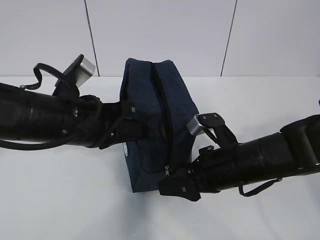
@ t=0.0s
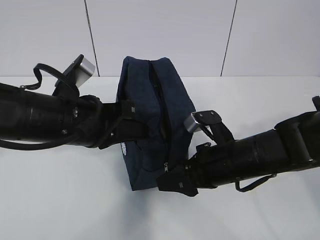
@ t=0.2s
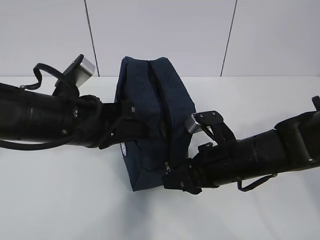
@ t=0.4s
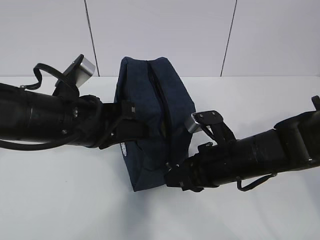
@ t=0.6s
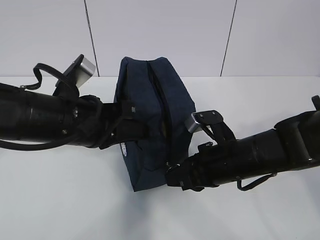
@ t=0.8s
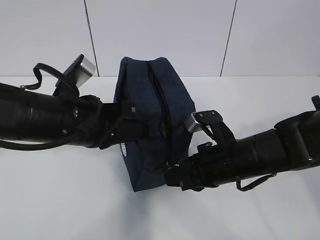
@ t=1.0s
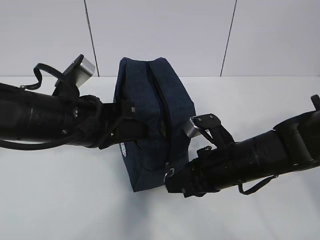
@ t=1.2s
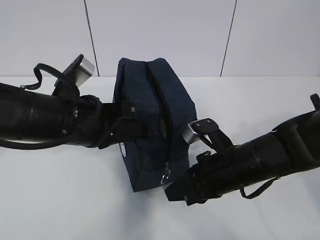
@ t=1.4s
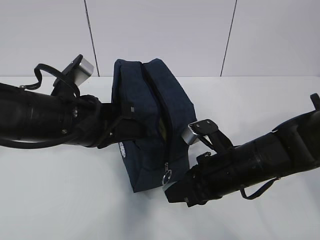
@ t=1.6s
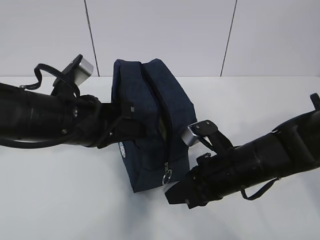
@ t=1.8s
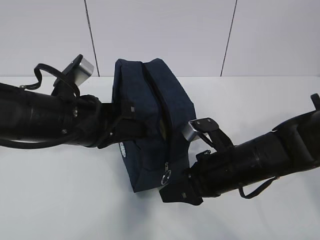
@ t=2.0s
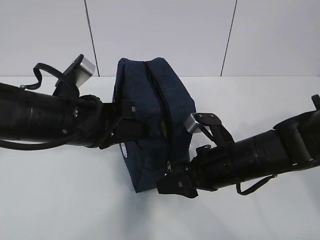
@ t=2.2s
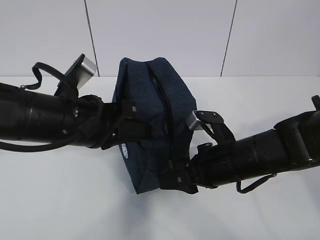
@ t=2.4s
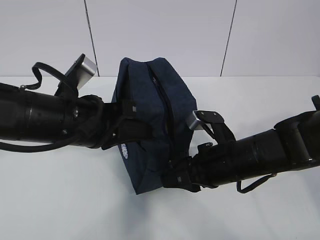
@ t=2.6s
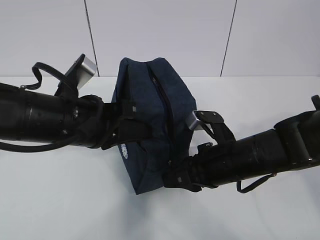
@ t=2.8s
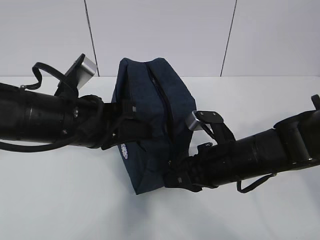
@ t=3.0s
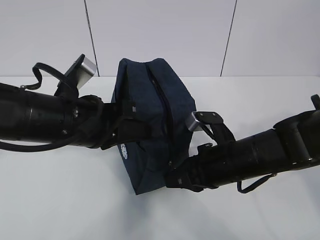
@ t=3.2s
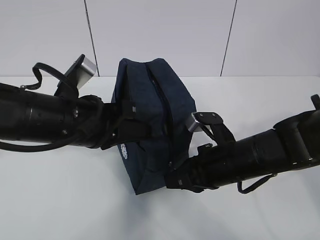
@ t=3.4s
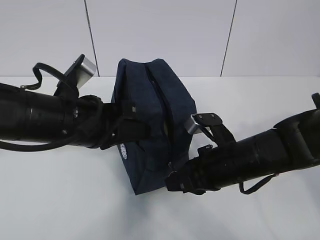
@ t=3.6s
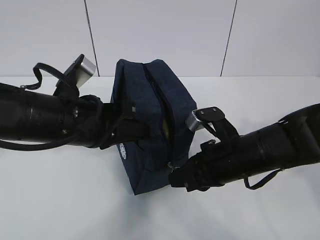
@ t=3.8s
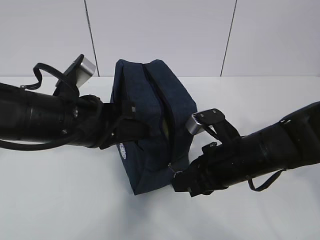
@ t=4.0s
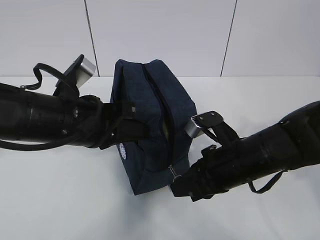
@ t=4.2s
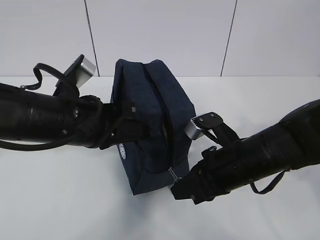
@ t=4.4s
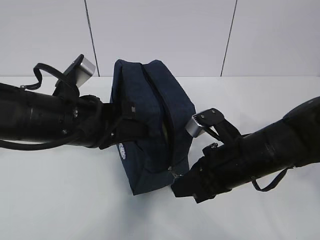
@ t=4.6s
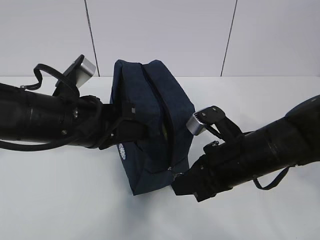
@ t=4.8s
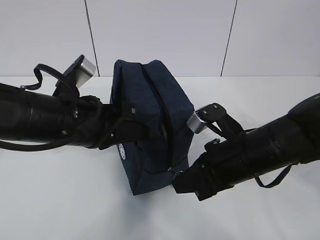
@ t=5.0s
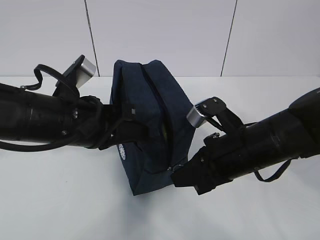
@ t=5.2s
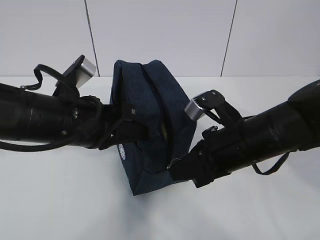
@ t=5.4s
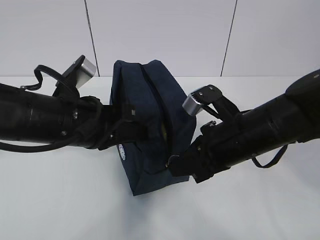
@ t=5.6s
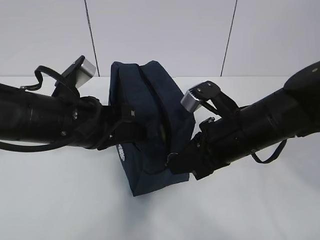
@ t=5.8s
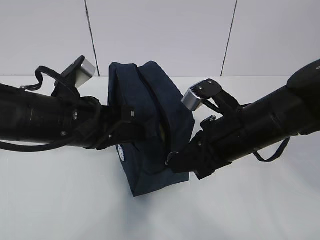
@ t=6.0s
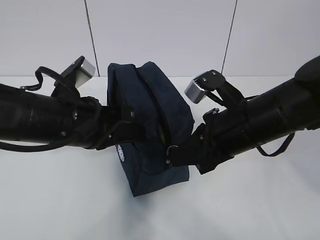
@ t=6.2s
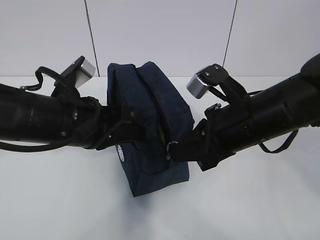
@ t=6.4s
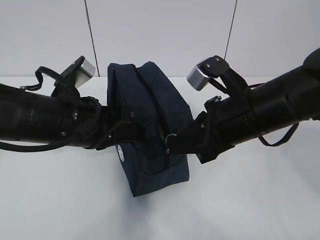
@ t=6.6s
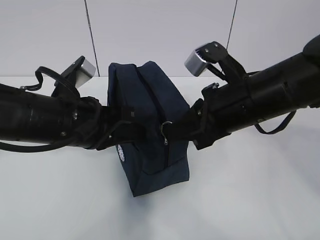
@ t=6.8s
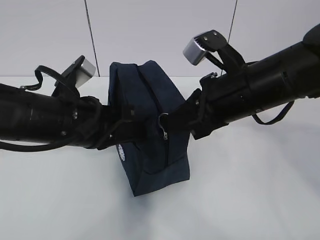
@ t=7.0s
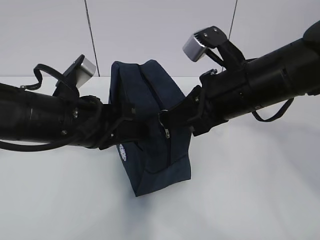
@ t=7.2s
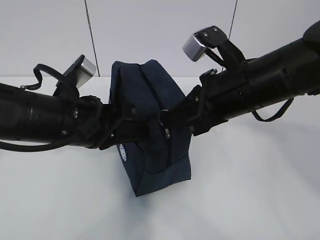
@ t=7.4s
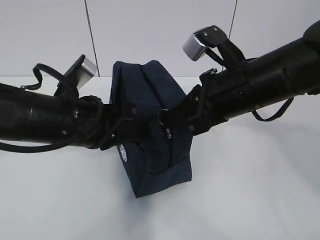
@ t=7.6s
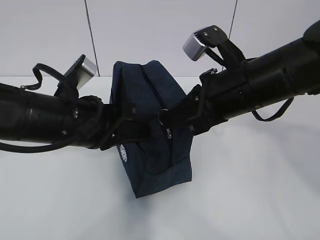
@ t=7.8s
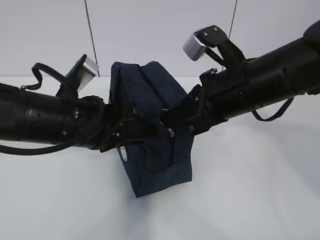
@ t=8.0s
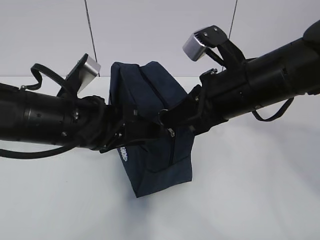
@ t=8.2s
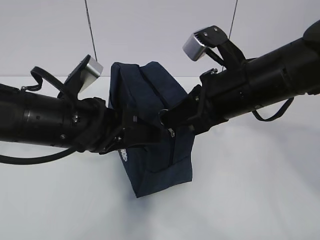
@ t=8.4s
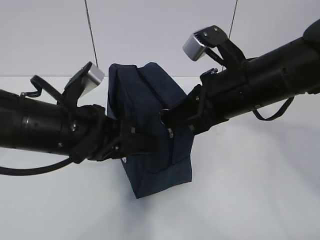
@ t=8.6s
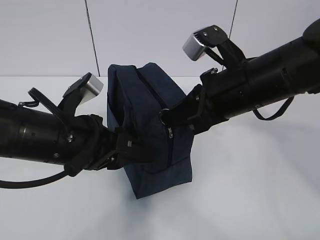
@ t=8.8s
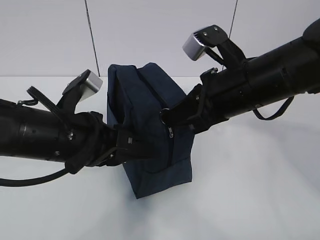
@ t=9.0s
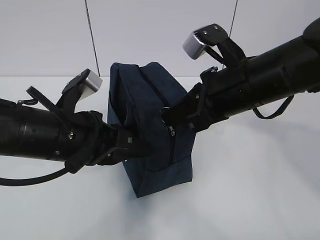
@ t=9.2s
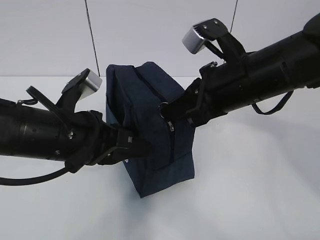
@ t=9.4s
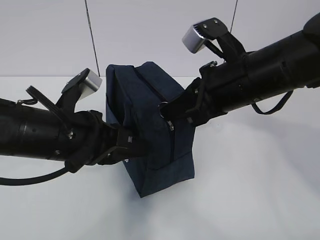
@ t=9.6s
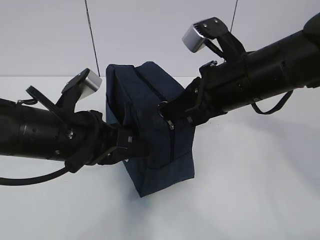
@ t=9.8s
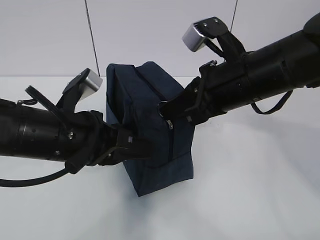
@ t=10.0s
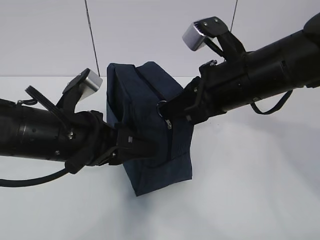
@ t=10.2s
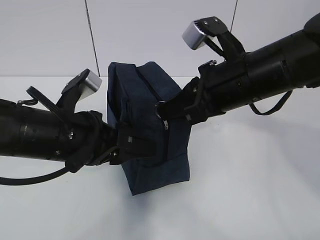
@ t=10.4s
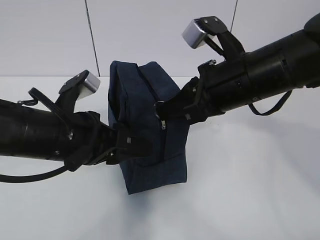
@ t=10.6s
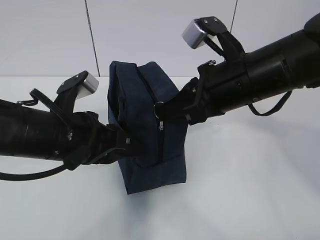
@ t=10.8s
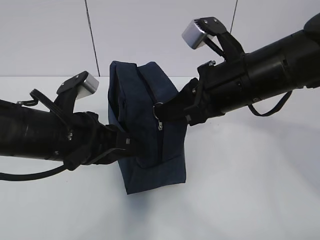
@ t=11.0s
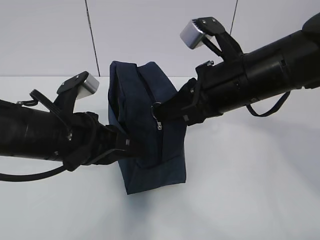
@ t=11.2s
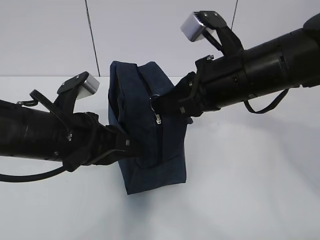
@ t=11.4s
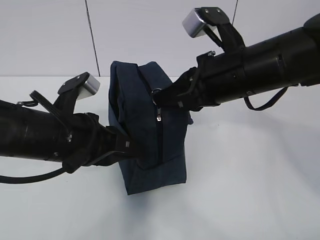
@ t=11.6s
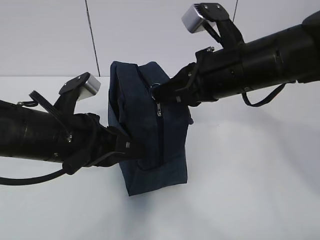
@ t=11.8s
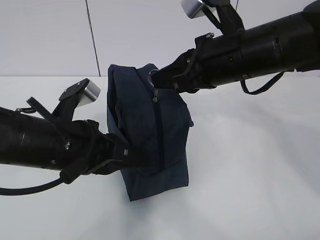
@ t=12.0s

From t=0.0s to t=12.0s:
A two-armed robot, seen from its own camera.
Step, from t=2.2s to t=8.6s: Grab the lunch bag with your left hand.
From t=0.0s to t=1.6s: The right gripper closes its fingers.
From t=1.6s to t=3.0s: The right gripper opens, then closes once more.
From t=3.0s to t=4.4s: The grippers stay close to where they were, moving slightly.
From t=4.4s to t=6.0s: The right gripper is displaced upward by about 5 cm.
From t=6.0s to t=7.6s: The right gripper is displaced upward by roughly 5 cm.
From t=7.6s to t=9.0s: The left gripper opens its fingers.
From t=9.0s to t=10.4s: The left gripper closes, then reopens.
From t=10.4s to t=12.0s: The left gripper closes.

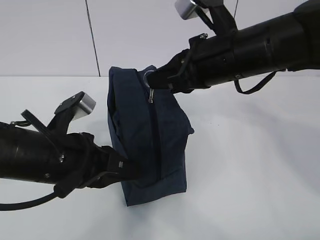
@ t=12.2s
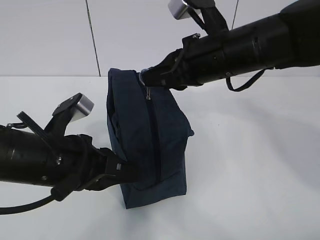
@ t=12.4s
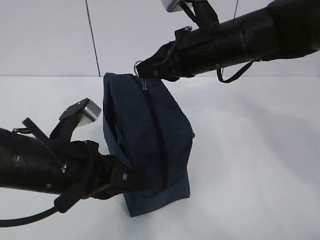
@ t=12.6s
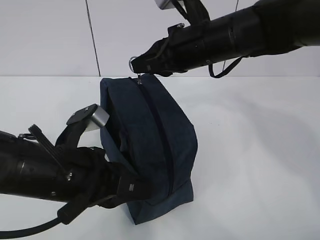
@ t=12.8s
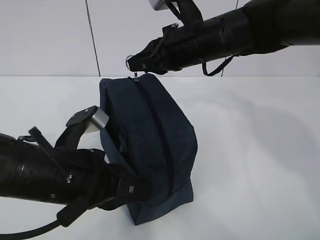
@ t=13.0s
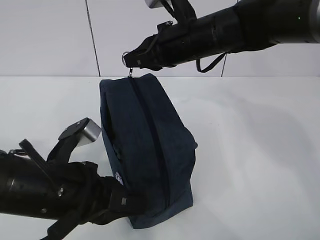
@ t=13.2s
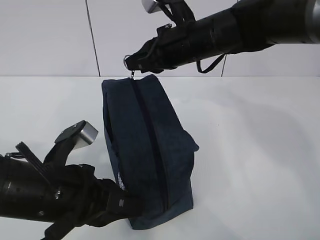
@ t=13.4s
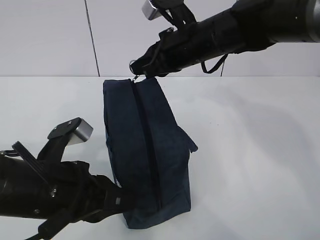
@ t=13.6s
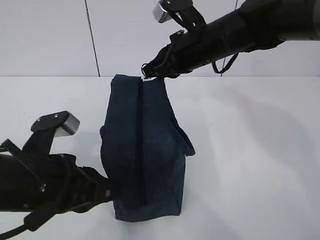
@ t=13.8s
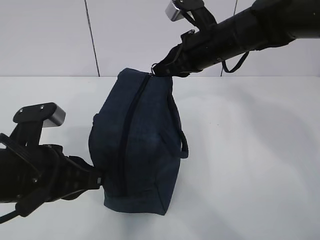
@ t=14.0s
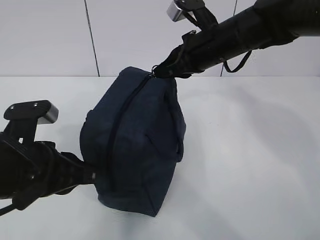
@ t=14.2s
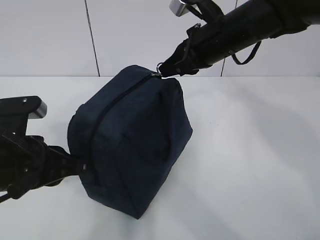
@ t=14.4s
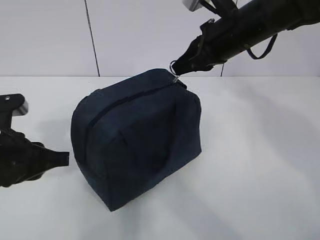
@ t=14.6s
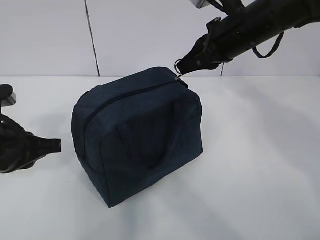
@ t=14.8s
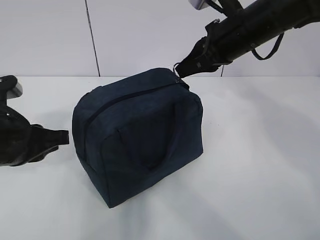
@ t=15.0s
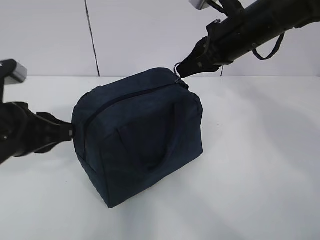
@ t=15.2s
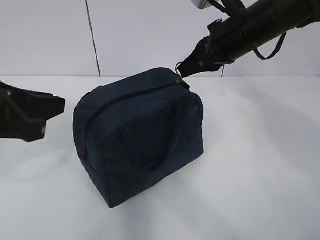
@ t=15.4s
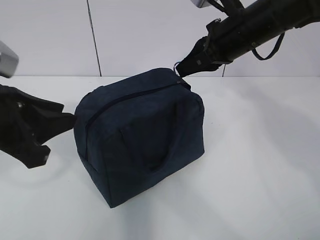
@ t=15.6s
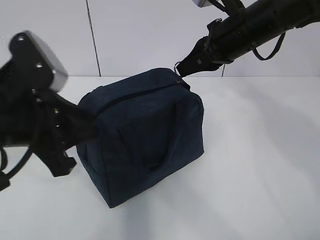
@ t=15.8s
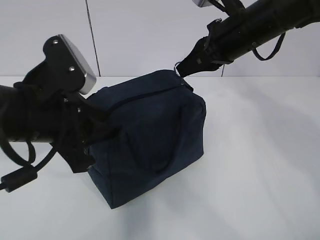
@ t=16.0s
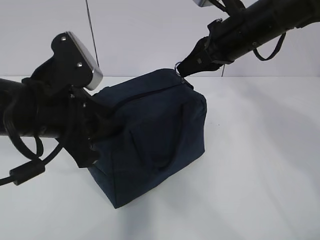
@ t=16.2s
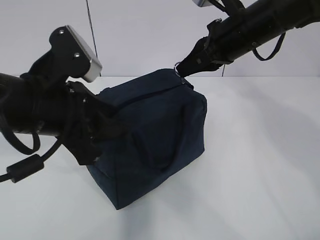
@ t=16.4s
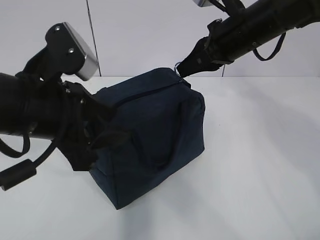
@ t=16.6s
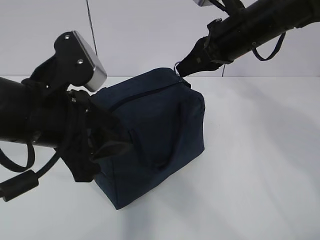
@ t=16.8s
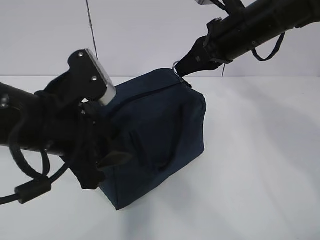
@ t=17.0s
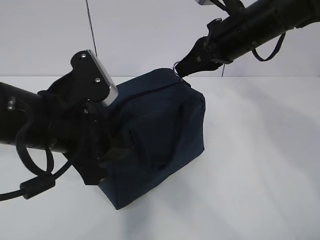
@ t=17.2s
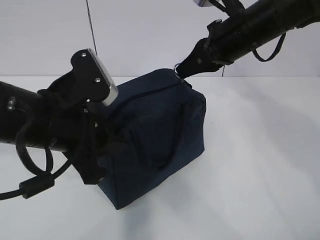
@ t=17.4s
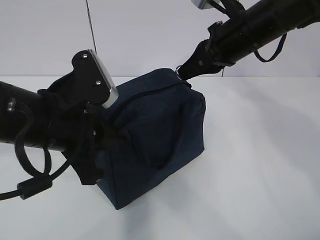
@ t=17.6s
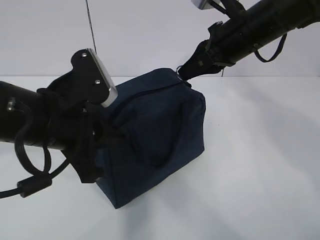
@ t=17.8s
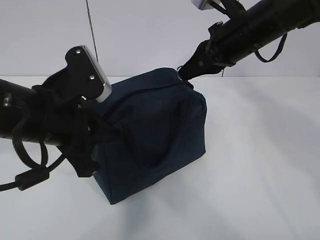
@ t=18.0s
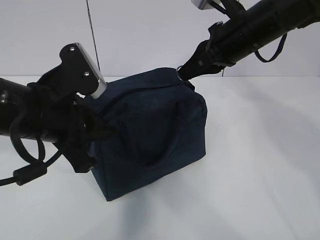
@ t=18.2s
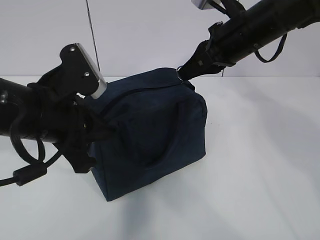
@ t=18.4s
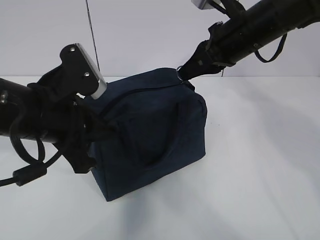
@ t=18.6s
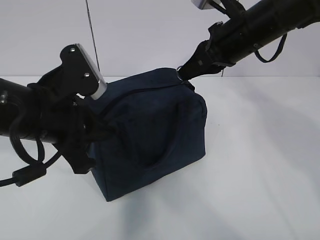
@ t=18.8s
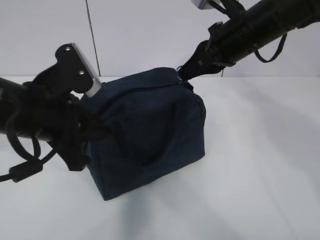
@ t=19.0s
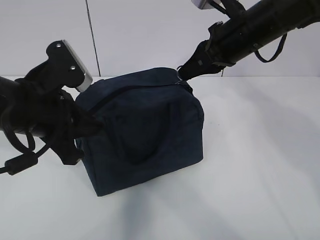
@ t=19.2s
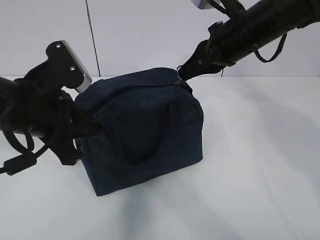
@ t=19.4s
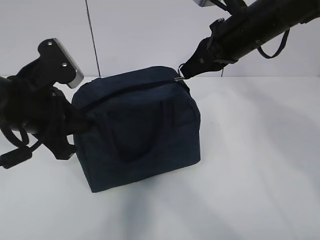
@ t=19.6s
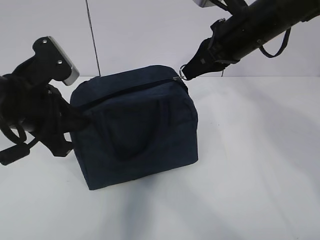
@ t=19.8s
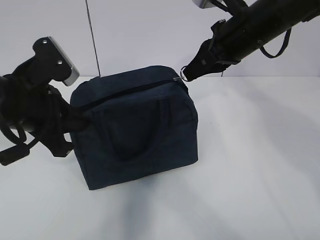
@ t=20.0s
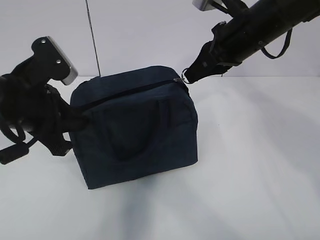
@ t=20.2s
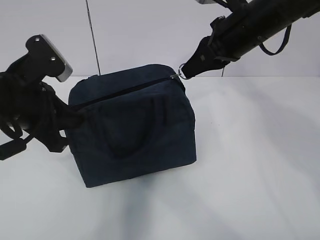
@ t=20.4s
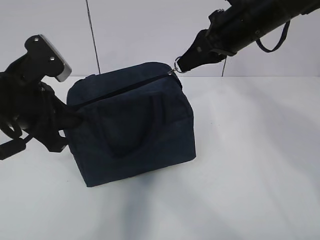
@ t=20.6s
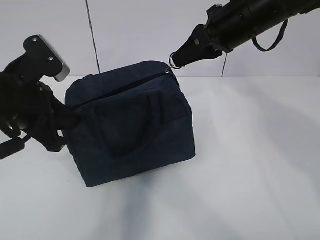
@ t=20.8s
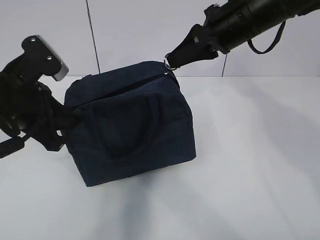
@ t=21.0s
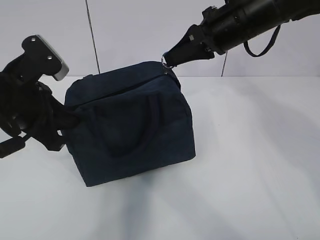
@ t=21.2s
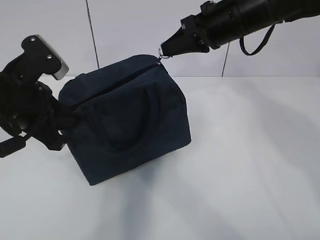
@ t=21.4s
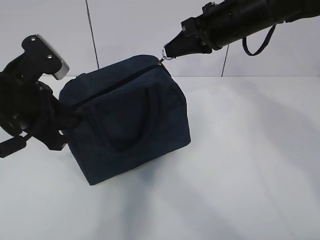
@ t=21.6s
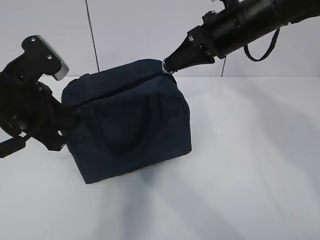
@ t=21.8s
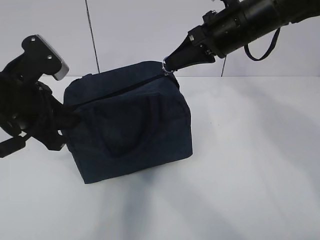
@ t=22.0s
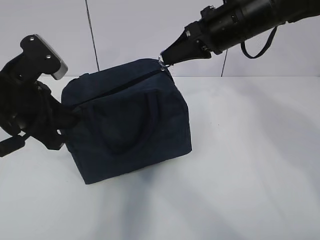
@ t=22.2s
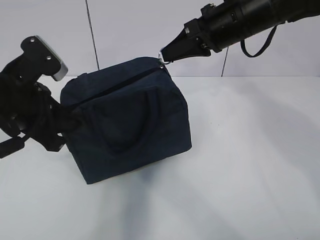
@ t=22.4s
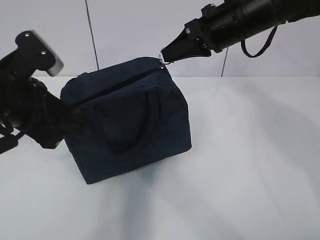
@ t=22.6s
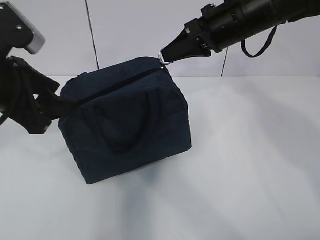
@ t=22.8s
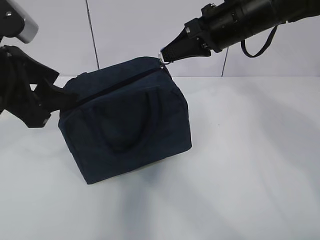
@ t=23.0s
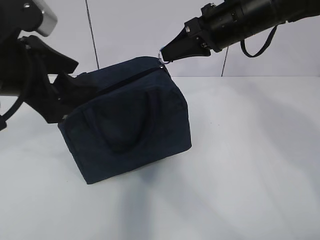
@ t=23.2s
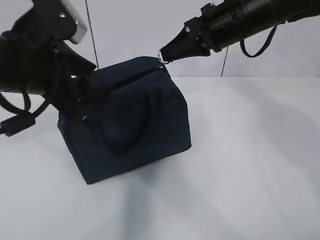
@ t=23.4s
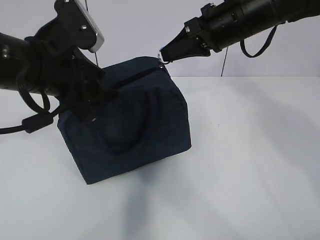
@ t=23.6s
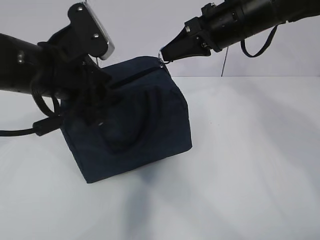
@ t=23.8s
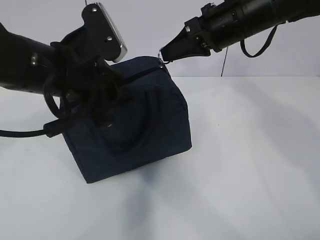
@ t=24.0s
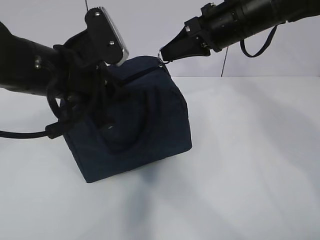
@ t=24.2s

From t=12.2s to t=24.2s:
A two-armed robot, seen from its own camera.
Step, from t=12.2s to t=18.0s: Pull the zipper with your right hand.
From t=12.2s to t=13.8s: The right gripper is displaced forward by about 10 cm.
From t=13.8s to t=15.2s: The left gripper changes place by about 5 cm. The right gripper moves to the right, about 5 cm.
From t=15.2s to t=16.6s: The left gripper is displaced to the right and upward by roughly 10 cm, and opens its fingers.
From t=16.6s to t=18.2s: The left gripper closes.
From t=18.2s to t=21.2s: The grippers stay close to where they were, moving slightly.
From t=21.2s to t=22.6s: The left gripper opens up.
From t=22.6s to t=24.2s: The left gripper moves to the right, about 5 cm, and closes up.
